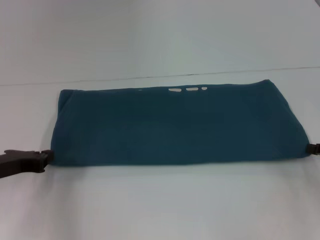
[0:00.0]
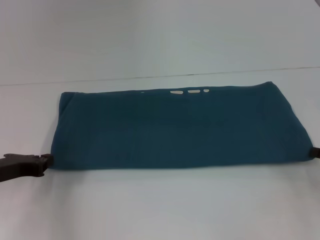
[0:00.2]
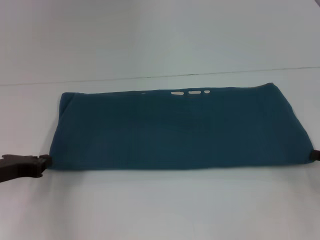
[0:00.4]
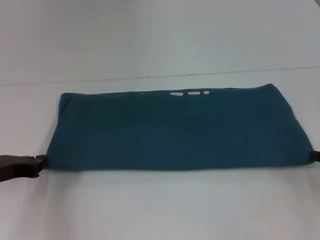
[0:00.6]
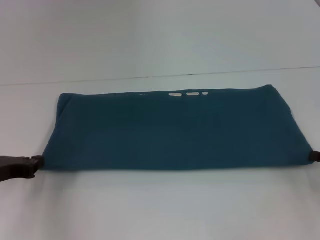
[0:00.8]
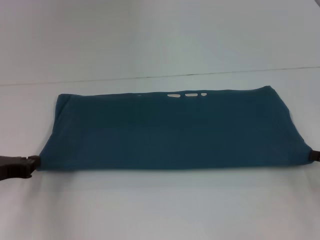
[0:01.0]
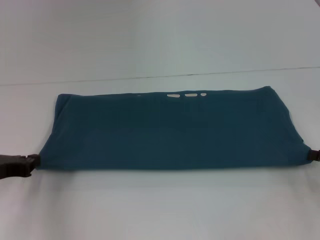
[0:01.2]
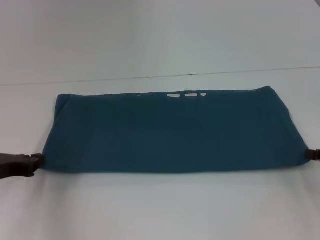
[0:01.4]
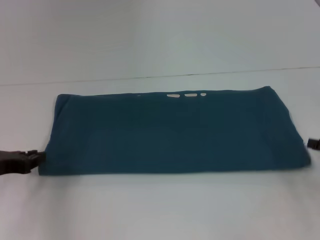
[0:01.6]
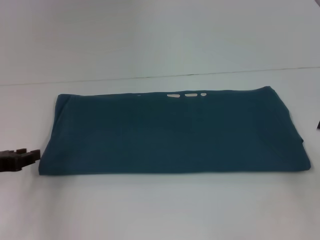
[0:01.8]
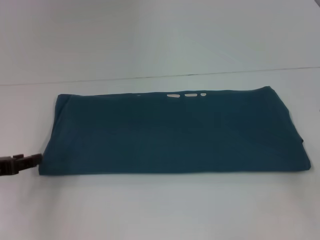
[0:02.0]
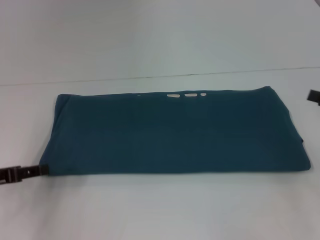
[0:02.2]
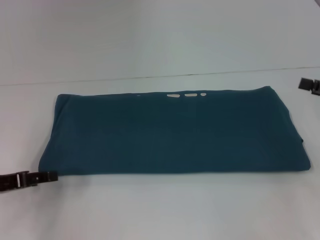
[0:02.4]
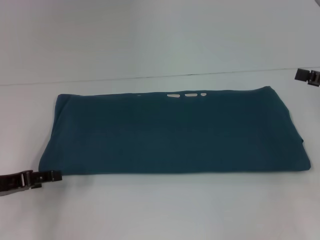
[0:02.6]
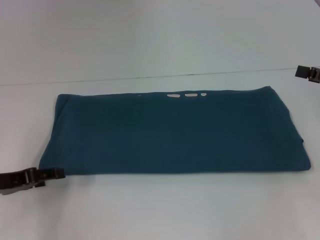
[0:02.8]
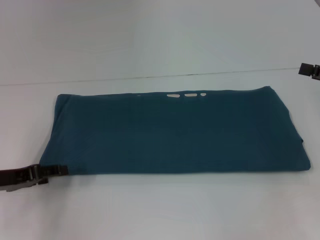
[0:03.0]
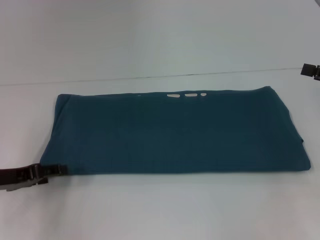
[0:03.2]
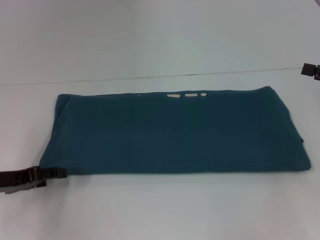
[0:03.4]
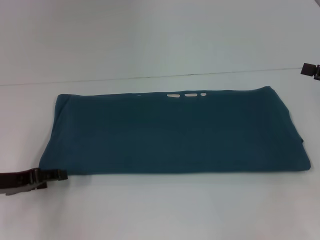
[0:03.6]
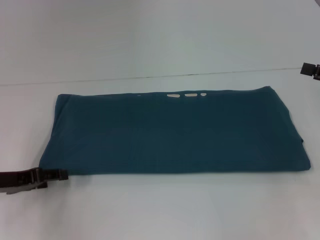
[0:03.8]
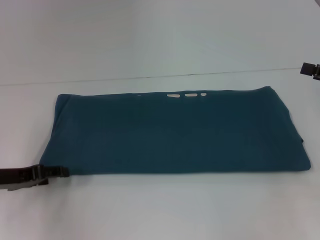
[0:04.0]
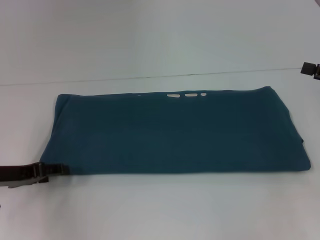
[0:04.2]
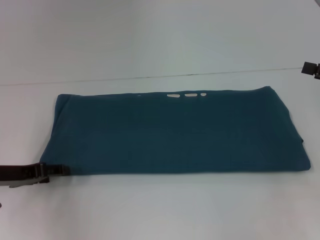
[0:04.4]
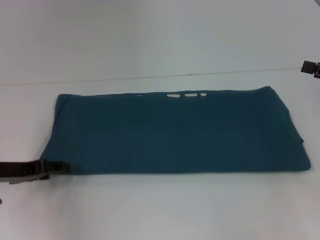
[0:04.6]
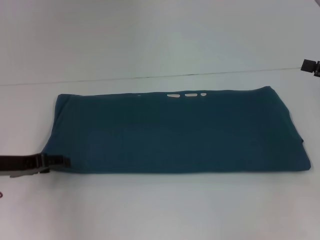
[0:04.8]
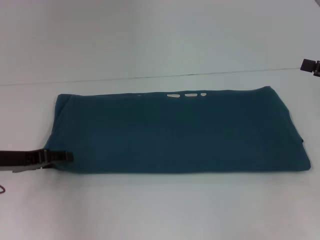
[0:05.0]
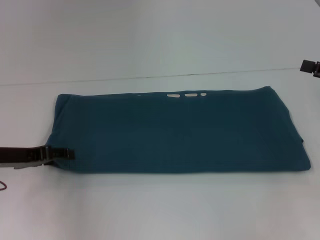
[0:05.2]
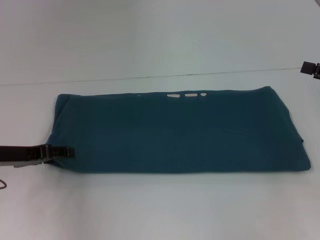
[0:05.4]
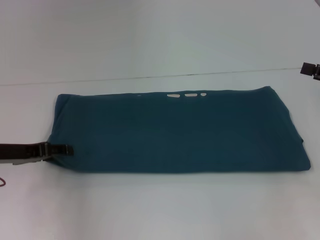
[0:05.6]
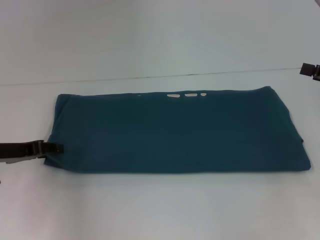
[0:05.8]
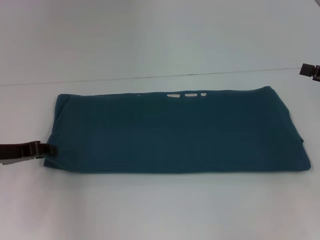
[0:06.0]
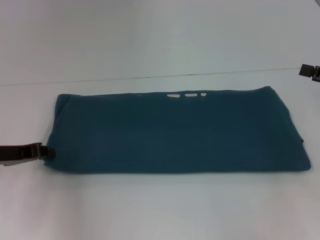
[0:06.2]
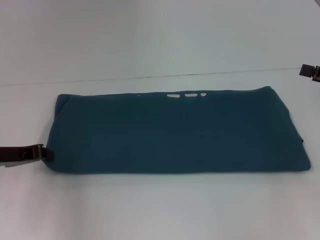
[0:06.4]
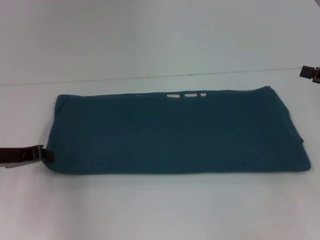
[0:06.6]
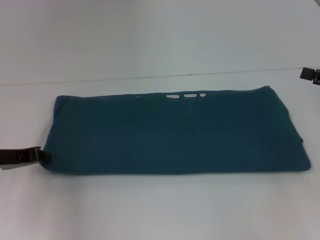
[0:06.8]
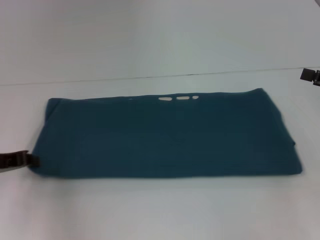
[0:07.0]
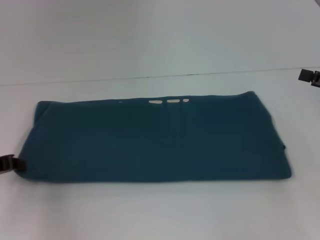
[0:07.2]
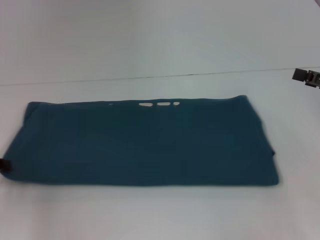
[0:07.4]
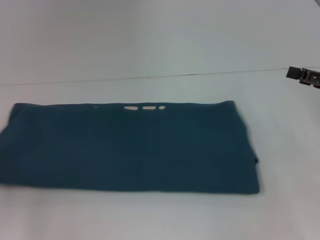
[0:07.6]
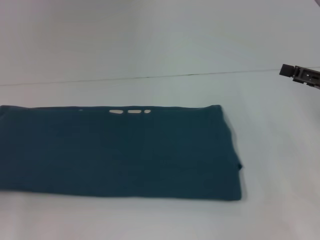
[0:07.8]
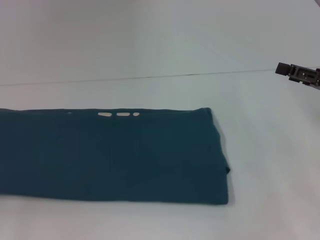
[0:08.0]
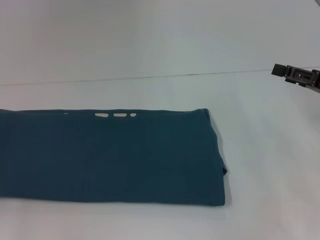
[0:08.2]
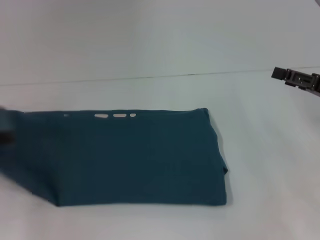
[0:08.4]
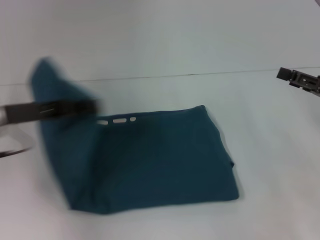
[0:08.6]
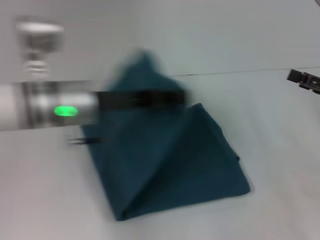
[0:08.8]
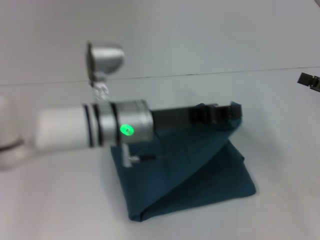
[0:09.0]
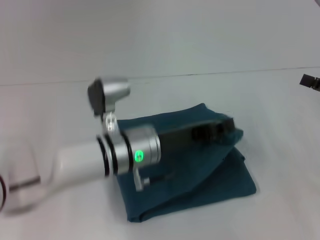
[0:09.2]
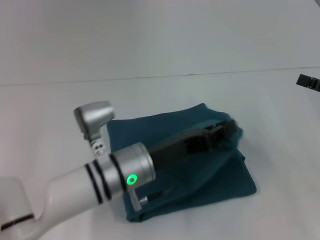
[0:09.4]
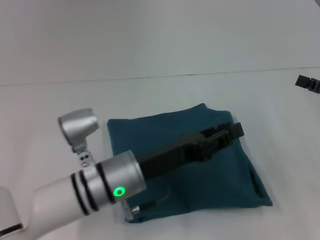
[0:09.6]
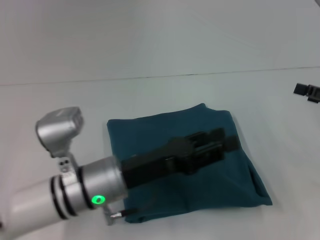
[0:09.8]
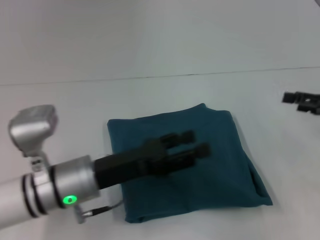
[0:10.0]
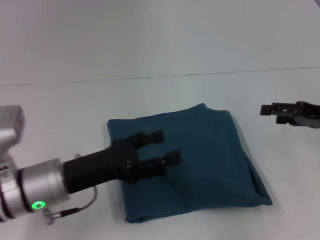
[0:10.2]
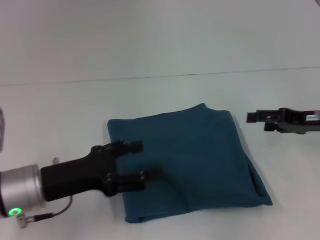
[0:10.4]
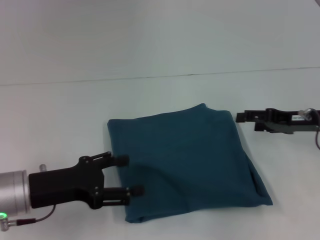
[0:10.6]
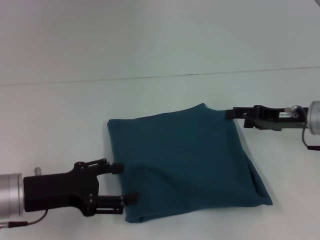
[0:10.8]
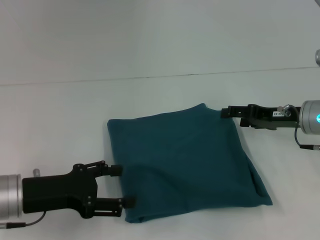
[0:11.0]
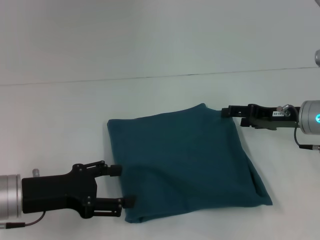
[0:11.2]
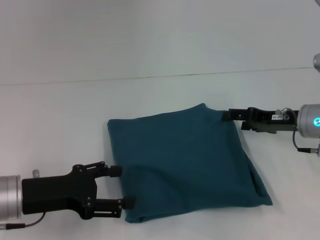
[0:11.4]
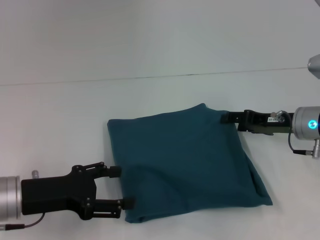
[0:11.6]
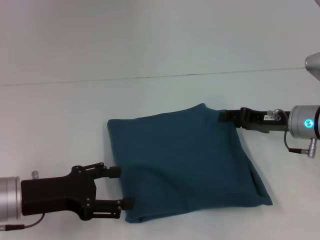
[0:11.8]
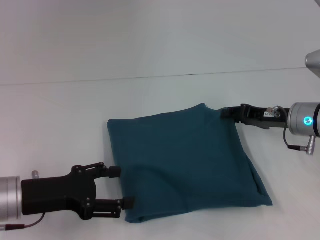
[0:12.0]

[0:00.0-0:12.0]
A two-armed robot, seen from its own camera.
Step, 0:00.0 to 0:09.4: Fold the clothes to the left.
0:00.0 to 0:01.6: The grippers stay close to where they were, moving slightly.
0:01.6 to 0:03.0: The right gripper heads upward, covering some 10 cm, and opens its fingers, while the left gripper opens.
0:04.4 to 0:06.0: The grippers move only a little.
0:06.0 to 0:07.6: The left gripper goes approximately 10 cm to the left, and closes.
0:07.6 to 0:09.0: The left gripper moves to the right, about 30 cm.
0:09.0 to 0:10.4: The right gripper travels to the left and forward by roughly 5 cm; the left gripper travels to the left and backward by some 15 cm, and opens.
0:10.4 to 0:12.0: The right gripper shifts roughly 5 cm to the left, and closes up.

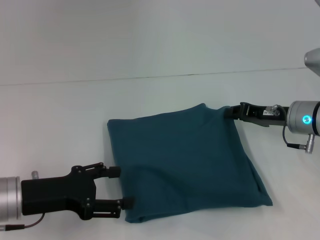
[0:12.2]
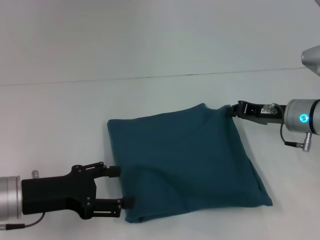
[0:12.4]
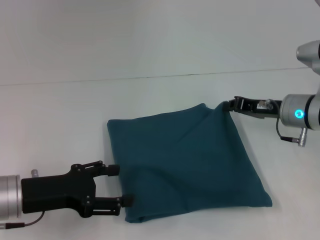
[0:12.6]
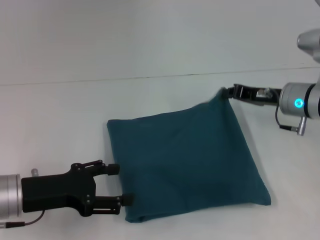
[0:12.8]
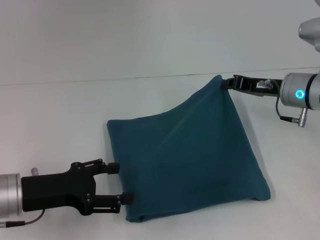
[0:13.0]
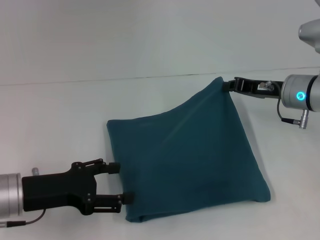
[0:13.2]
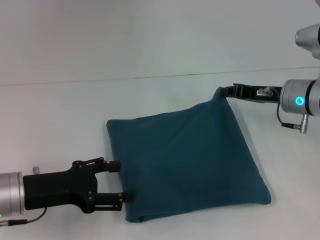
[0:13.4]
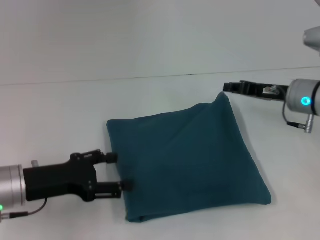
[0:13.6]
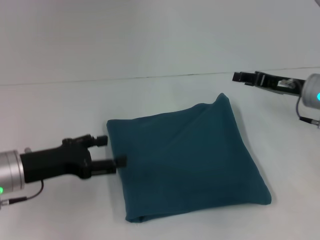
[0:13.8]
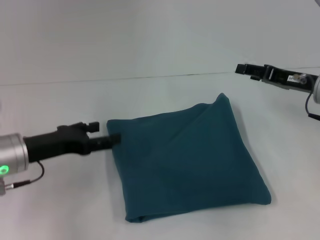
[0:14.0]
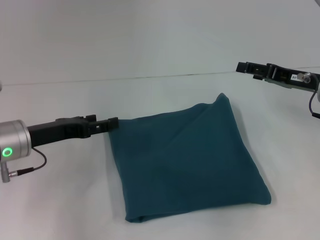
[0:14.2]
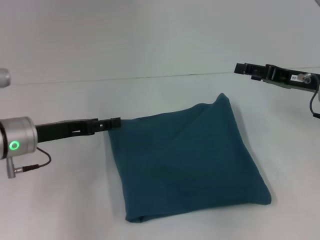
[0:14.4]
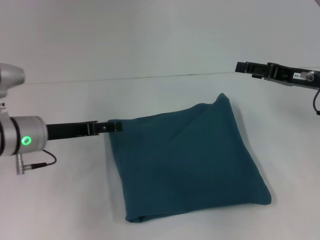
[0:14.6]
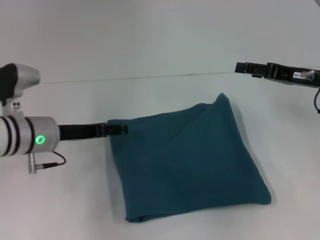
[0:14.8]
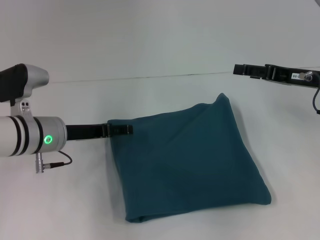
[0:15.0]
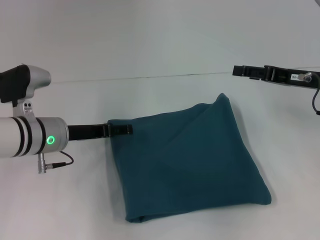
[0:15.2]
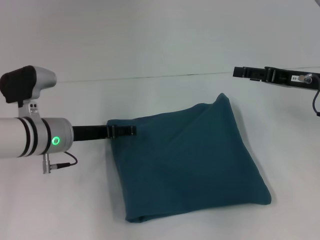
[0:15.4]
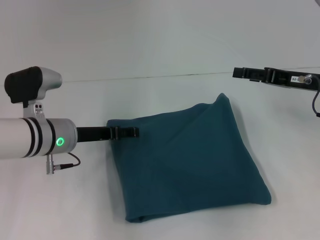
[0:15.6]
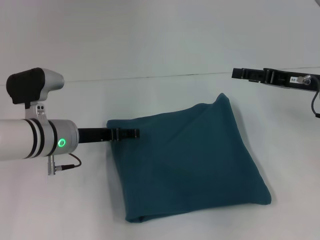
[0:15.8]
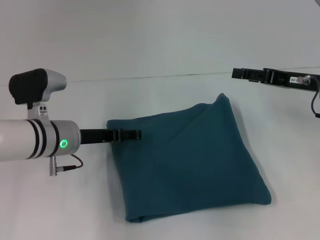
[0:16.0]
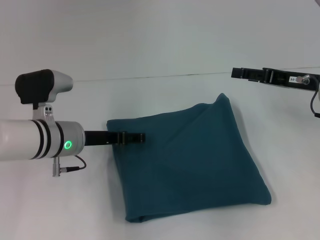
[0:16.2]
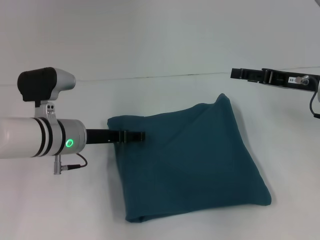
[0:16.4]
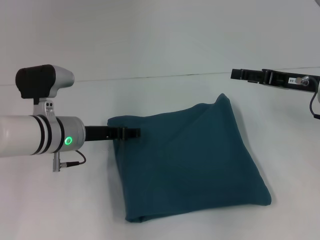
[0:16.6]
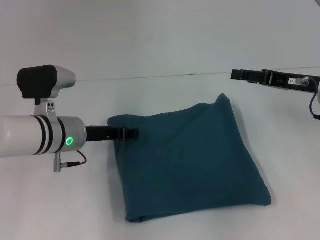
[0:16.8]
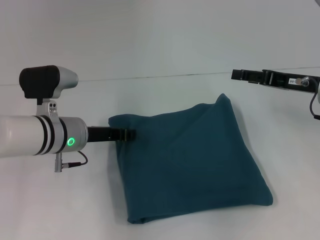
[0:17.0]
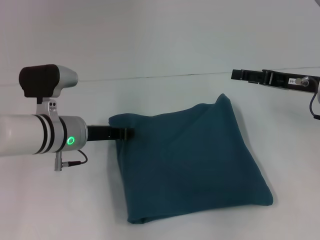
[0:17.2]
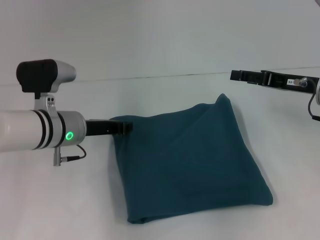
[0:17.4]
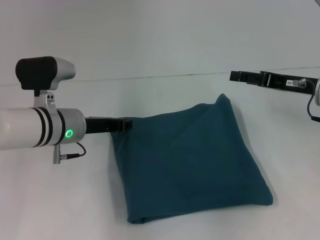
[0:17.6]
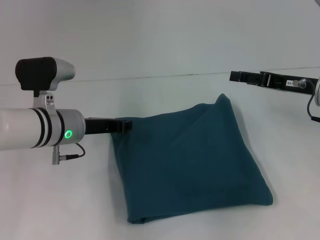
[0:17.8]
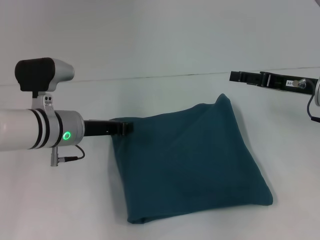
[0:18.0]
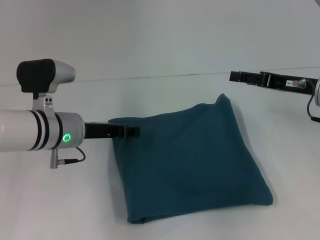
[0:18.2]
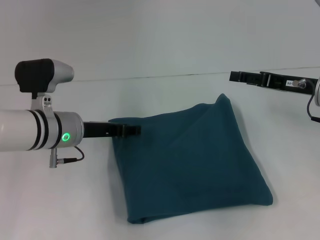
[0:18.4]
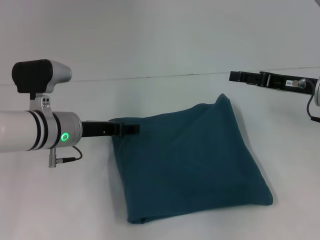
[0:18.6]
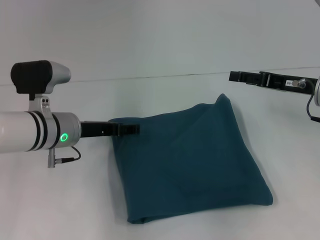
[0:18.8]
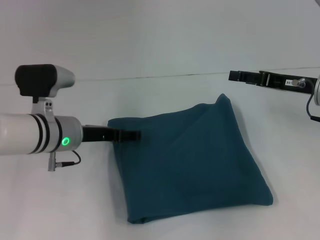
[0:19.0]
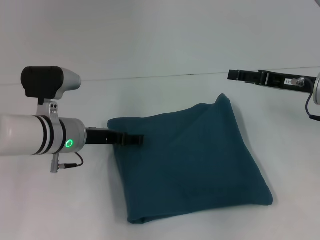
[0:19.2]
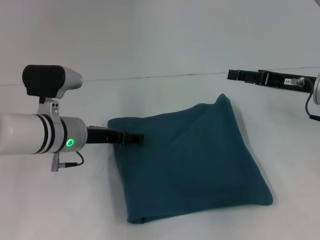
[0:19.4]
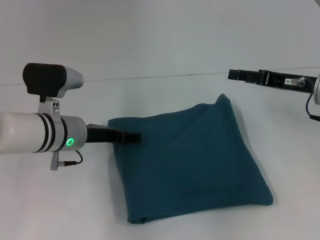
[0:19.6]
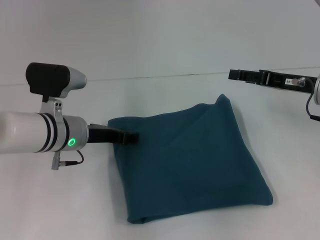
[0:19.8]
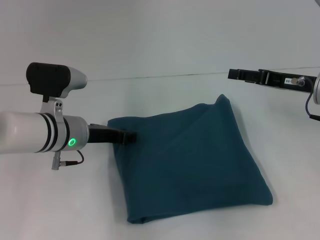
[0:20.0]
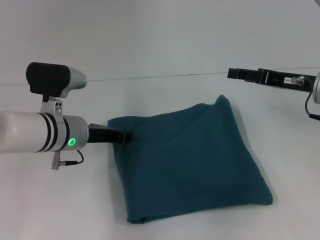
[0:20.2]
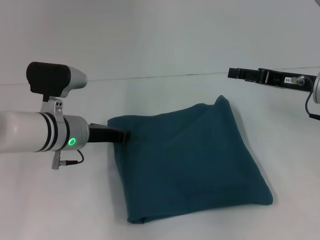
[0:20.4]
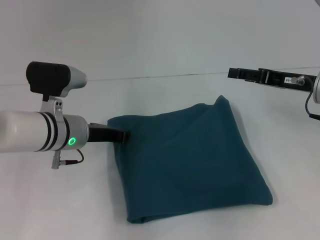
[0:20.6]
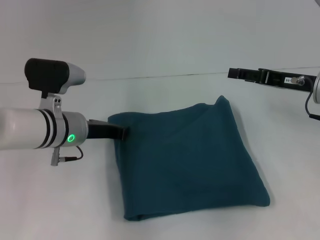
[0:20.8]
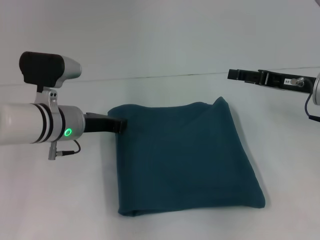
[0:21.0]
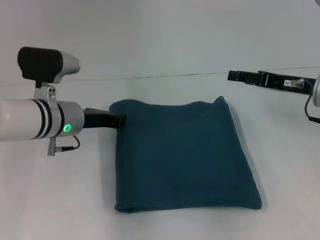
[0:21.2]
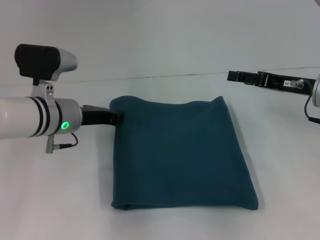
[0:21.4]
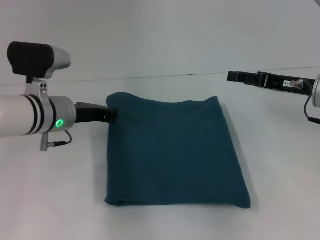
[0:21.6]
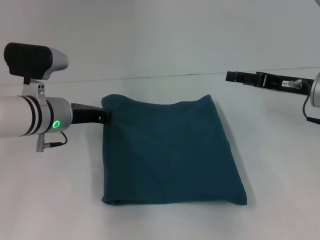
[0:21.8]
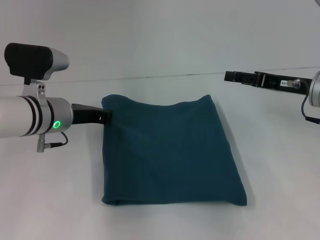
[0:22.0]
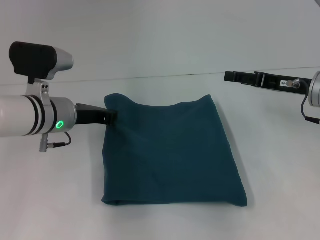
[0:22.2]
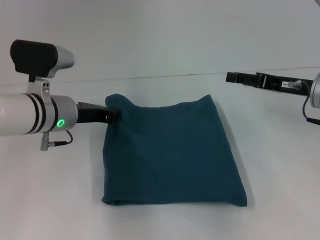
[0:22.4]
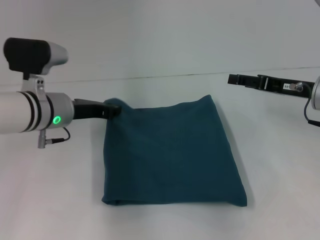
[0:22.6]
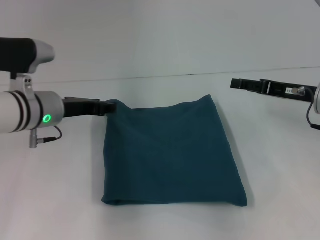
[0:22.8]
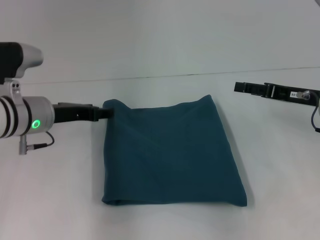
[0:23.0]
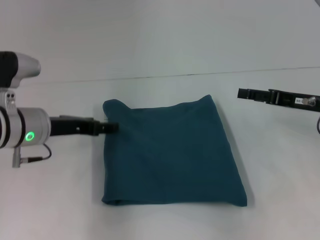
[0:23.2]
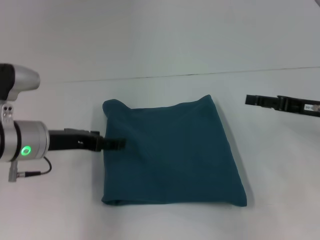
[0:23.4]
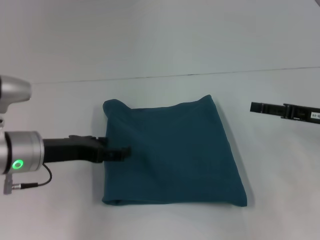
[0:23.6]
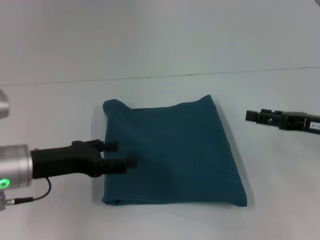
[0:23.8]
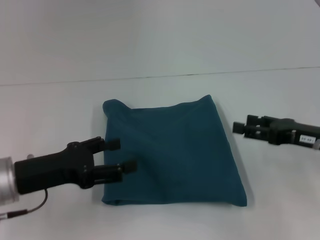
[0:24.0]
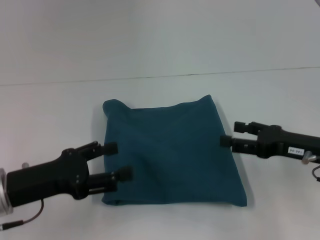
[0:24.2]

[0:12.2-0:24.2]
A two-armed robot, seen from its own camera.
0:12.2 to 0:13.8: The grippers make only small movements.
0:13.8 to 0:15.2: The left gripper shifts some 10 cm forward and to the right. Meanwhile the right gripper opens.
0:15.2 to 0:16.6: The grippers stay close to where they were, moving slightly.
0:16.6 to 0:18.2: The left gripper closes its fingers.
0:18.2 to 0:19.8: The left gripper opens up.
0:19.8 to 0:21.2: The left gripper closes up.
0:21.2 to 0:22.6: There are only small adjustments of the grippers.
0:22.6 to 0:24.2: The left gripper shifts roughly 15 cm backward and to the left, and opens up. The right gripper is displaced backward by roughly 10 cm.
